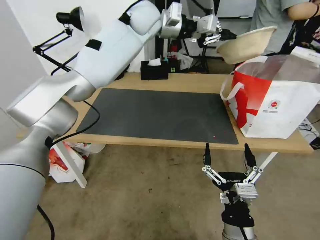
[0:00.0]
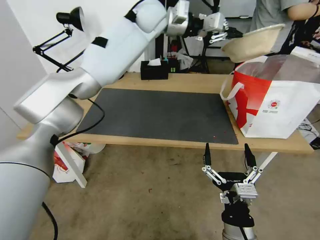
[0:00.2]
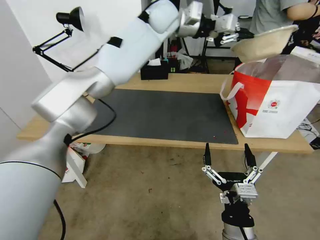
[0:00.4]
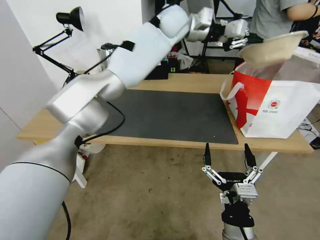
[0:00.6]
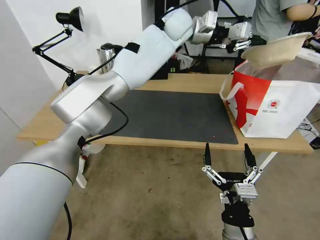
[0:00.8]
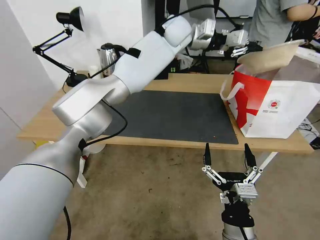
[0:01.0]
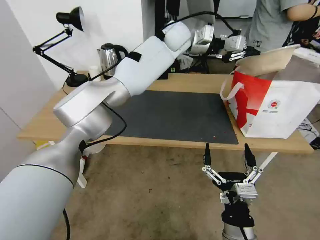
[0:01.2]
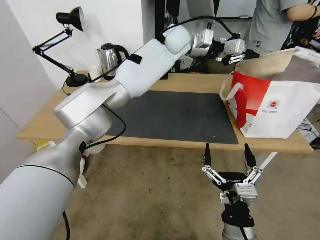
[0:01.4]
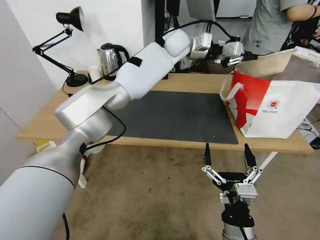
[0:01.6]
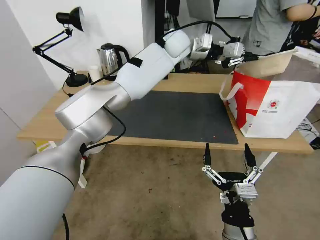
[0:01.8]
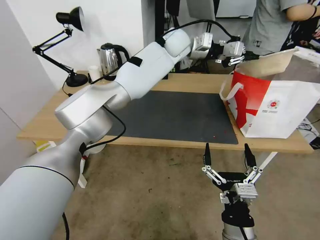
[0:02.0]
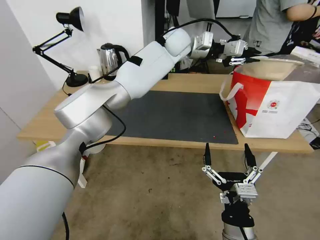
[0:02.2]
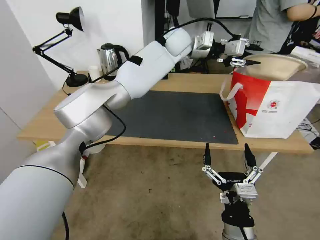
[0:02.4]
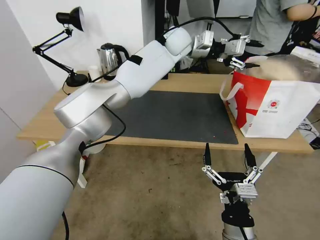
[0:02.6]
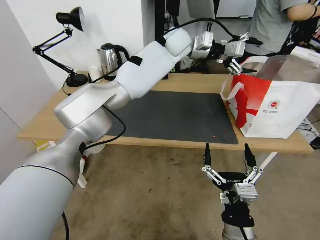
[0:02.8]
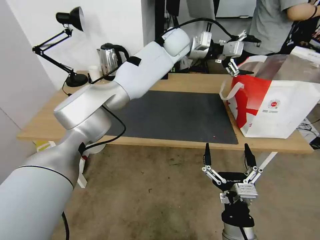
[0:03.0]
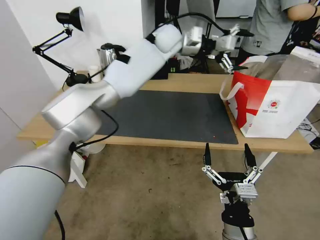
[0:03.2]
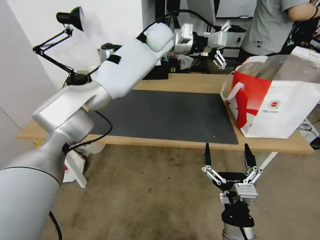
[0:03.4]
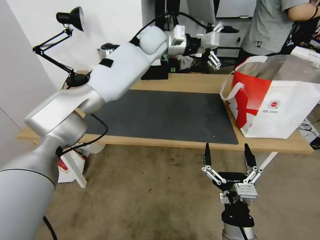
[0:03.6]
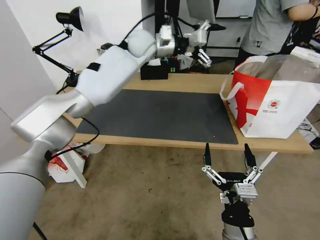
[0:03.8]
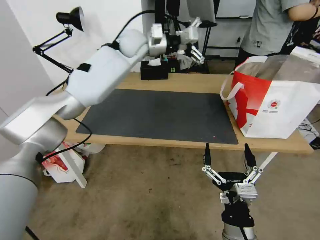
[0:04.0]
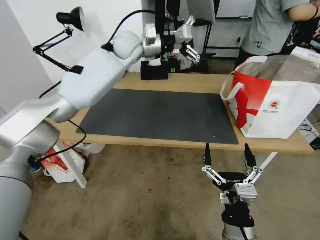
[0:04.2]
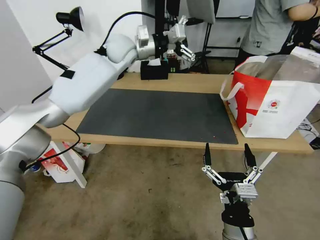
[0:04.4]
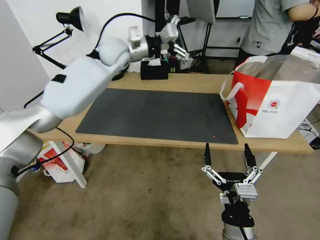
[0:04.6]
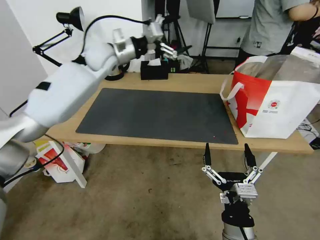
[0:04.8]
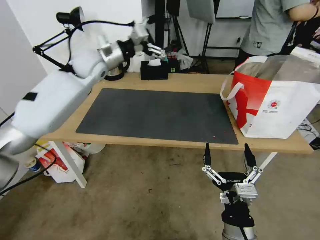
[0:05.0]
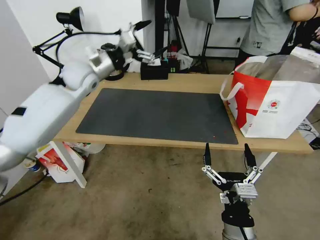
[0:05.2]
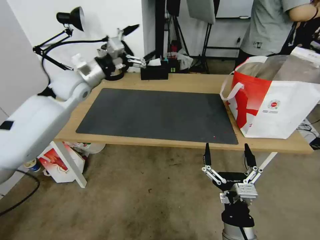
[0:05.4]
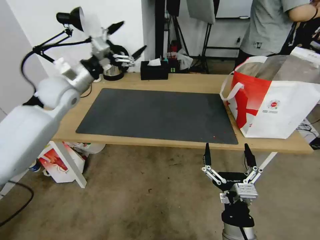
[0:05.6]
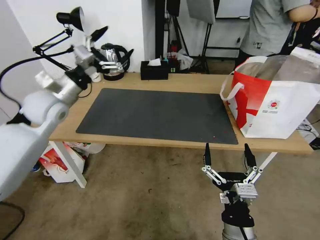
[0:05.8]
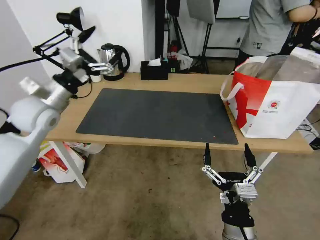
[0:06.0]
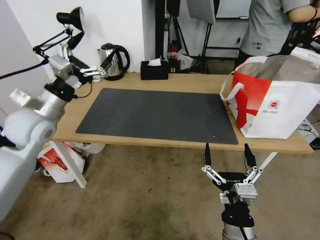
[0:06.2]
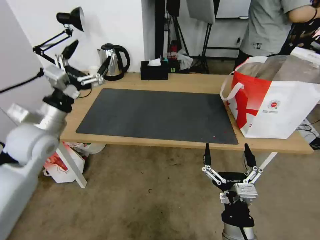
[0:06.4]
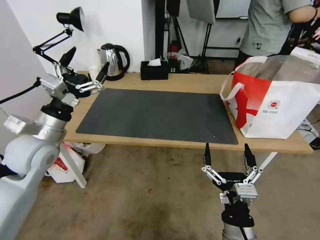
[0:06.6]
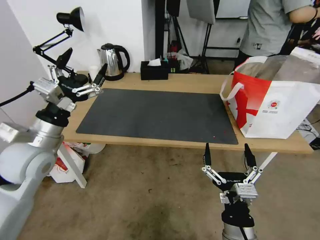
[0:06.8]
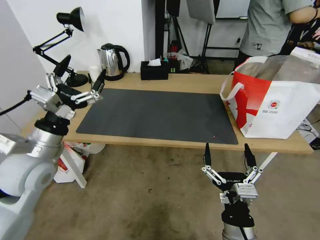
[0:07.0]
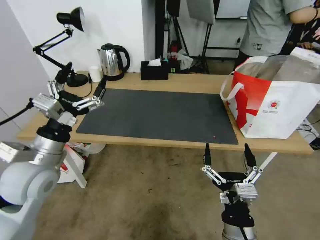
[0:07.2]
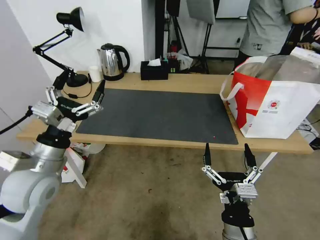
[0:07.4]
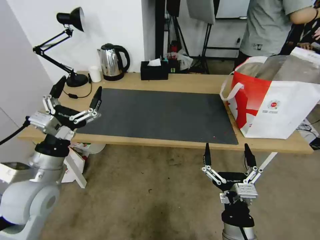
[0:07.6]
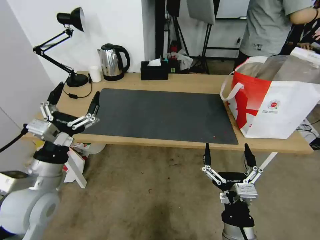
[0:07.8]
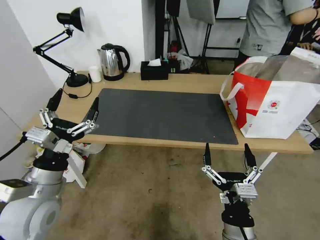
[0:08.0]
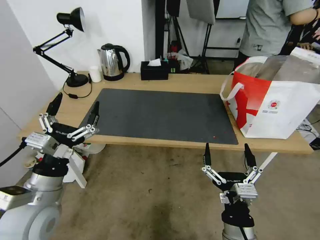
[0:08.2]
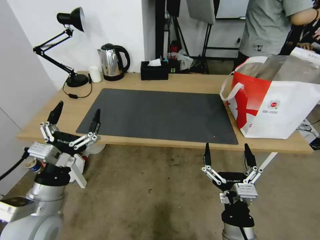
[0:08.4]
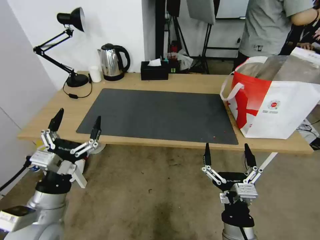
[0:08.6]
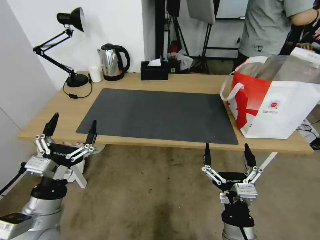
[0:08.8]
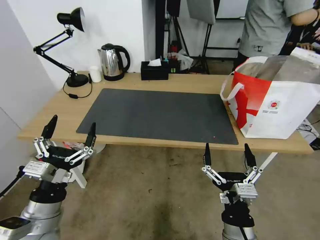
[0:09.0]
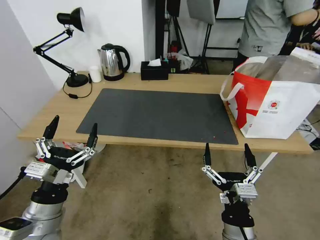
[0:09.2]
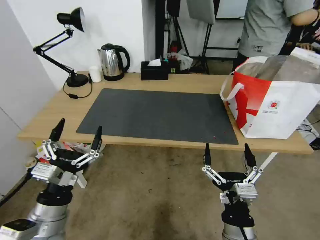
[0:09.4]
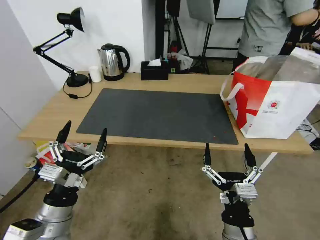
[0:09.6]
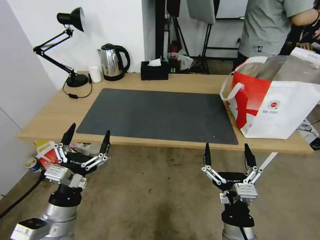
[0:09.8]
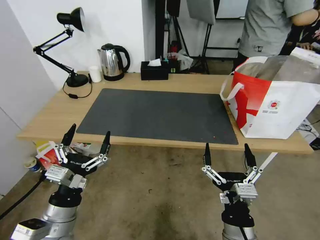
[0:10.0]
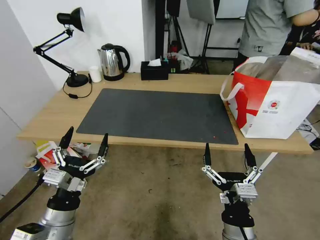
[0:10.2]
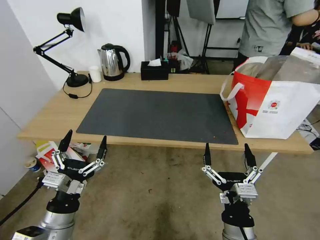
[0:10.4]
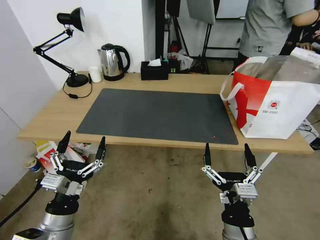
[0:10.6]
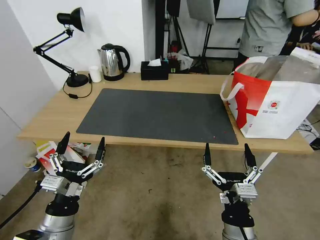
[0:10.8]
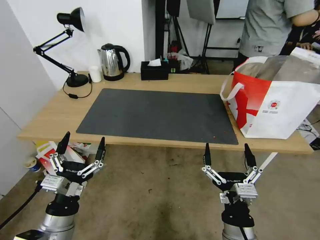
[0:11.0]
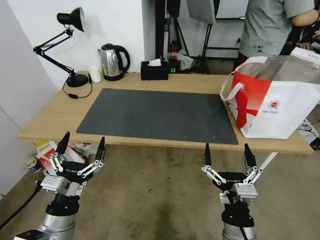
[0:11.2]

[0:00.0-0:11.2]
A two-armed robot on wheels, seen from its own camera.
Task of the whole recording: Pick up the trash from the table and place it into the takeout bag.
0:00.0 to 0:01.6: The left gripper moves to the right and downward, about 10 cm.
0:01.6 to 0:03.2: The left gripper opens up.
0:03.2 to 0:04.8: The left gripper goes some 20 cm to the left.
0:04.8 to 0:06.4: The left gripper goes some 30 cm backward, to the left and downward.
0:06.4 to 0:08.0: The left gripper moves backward and downward, roughly 15 cm.
0:08.0 to 0:09.6: The left gripper shifts some 10 cm backward and downward.
0:09.6 to 0:11.2: The grippers stay close to where they were, moving slightly.
